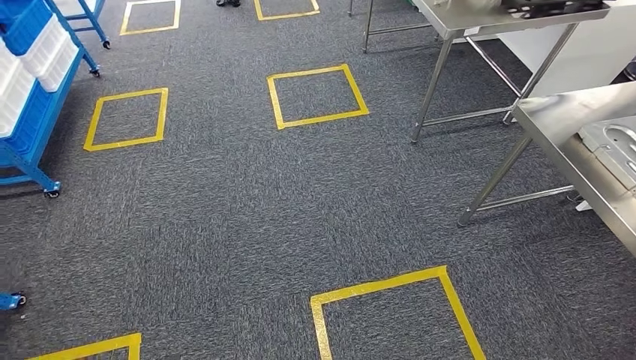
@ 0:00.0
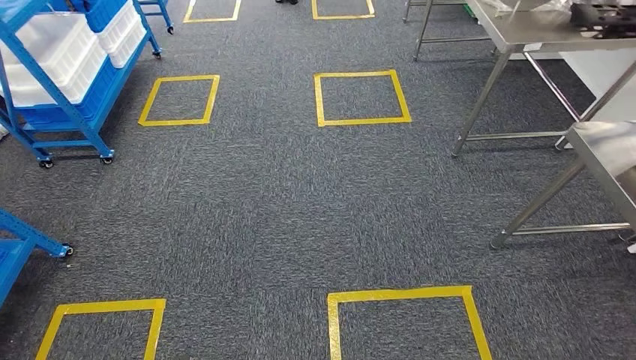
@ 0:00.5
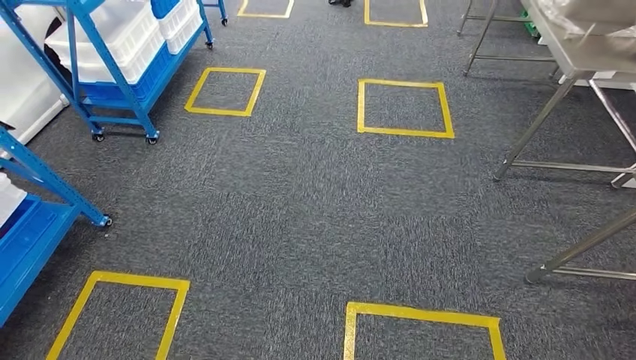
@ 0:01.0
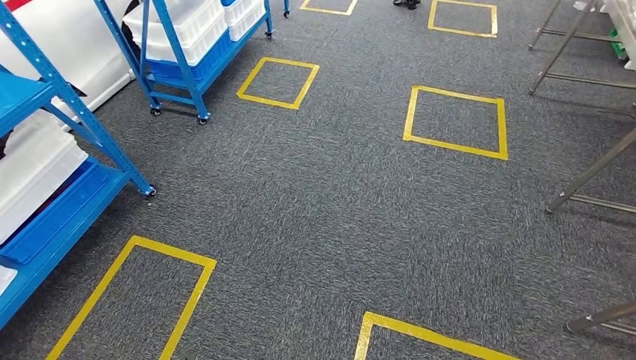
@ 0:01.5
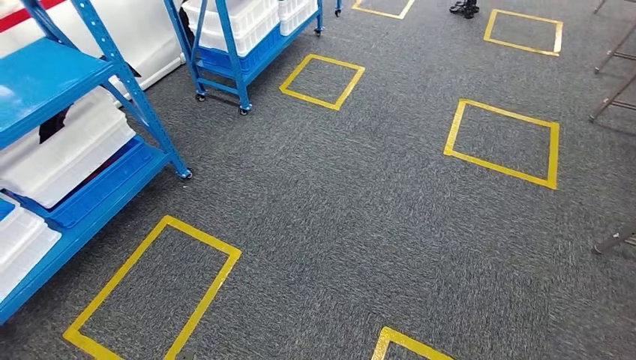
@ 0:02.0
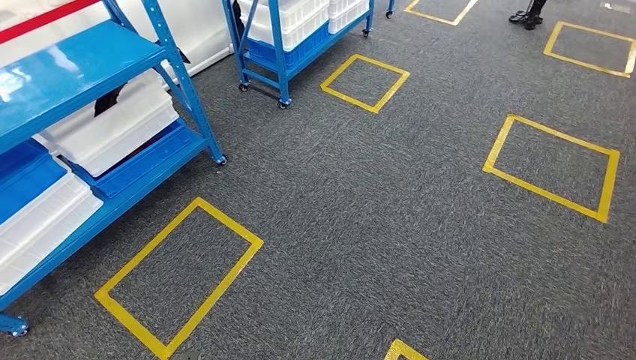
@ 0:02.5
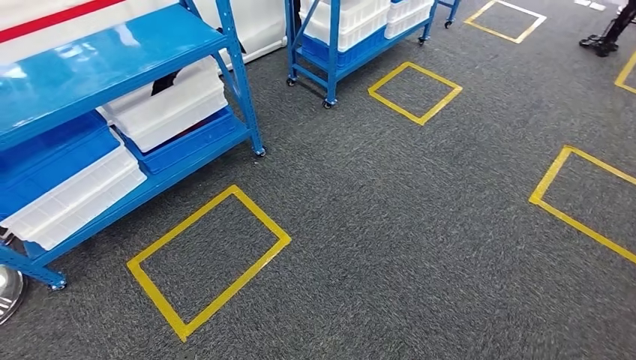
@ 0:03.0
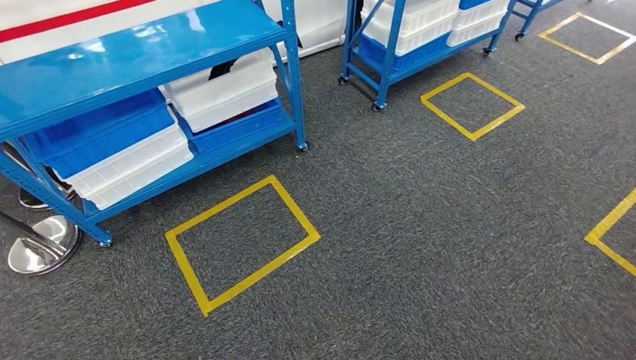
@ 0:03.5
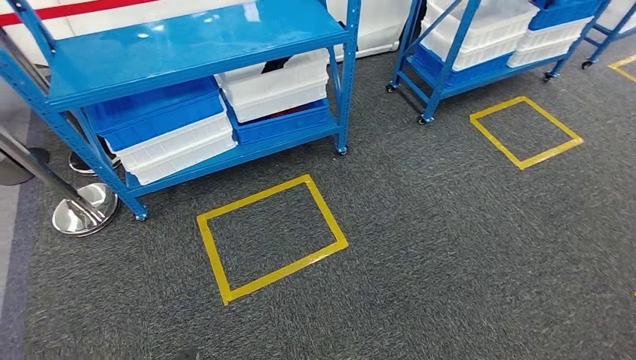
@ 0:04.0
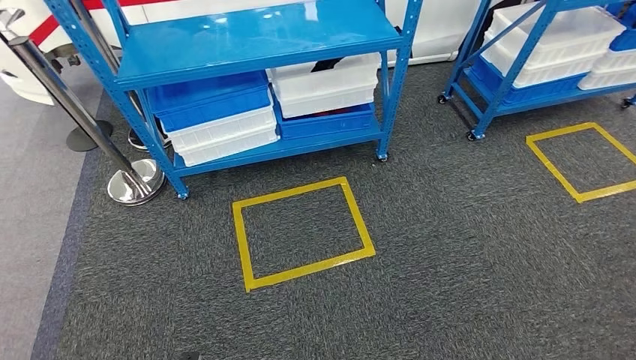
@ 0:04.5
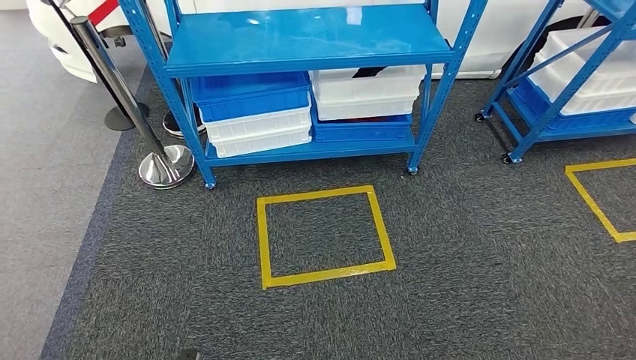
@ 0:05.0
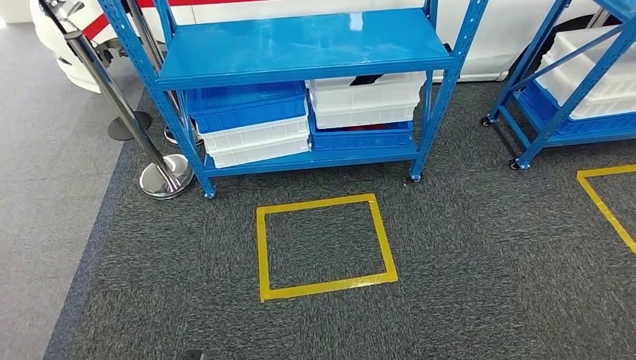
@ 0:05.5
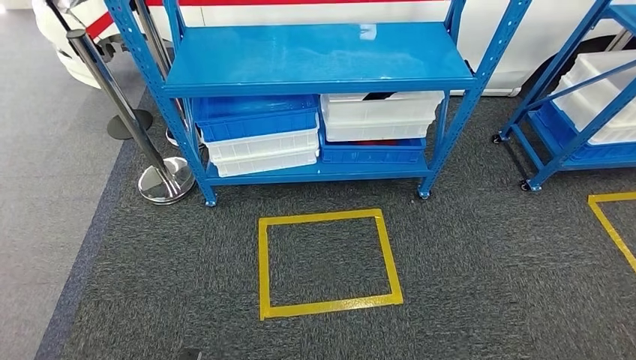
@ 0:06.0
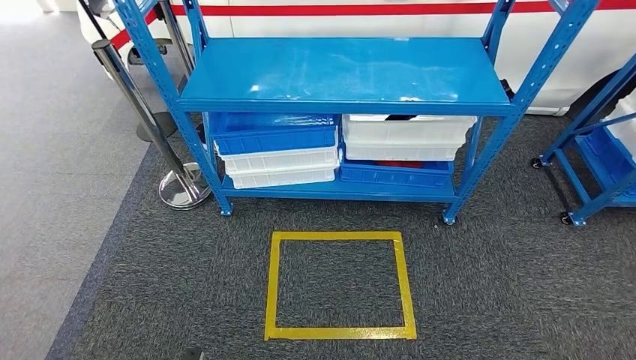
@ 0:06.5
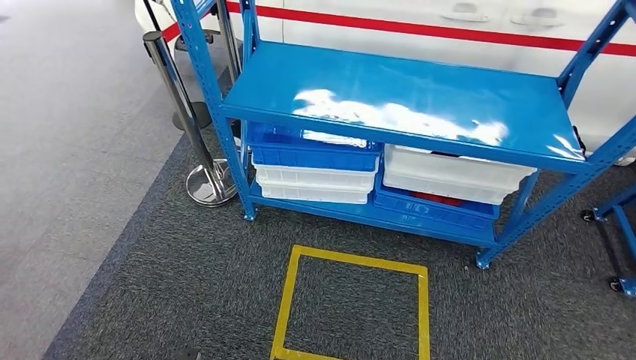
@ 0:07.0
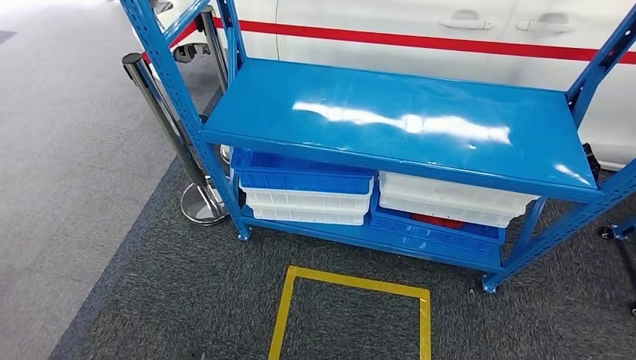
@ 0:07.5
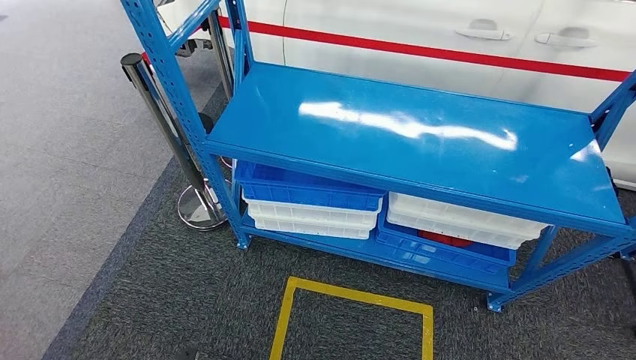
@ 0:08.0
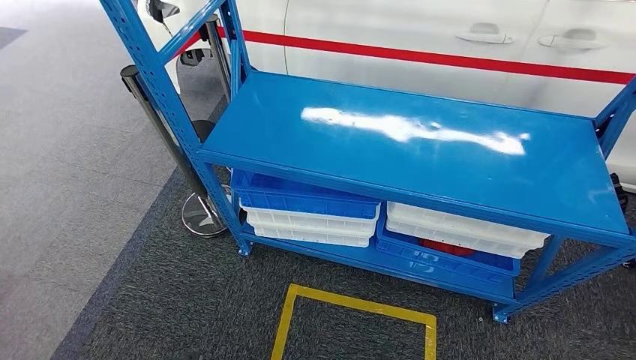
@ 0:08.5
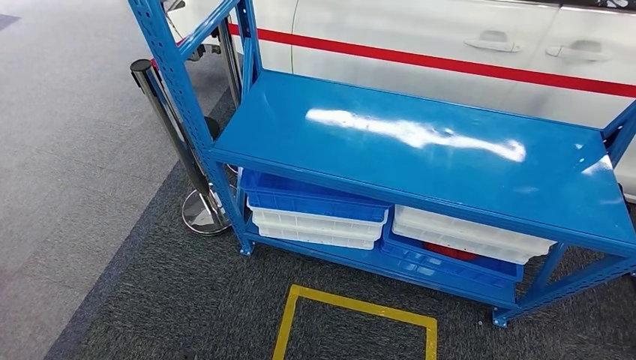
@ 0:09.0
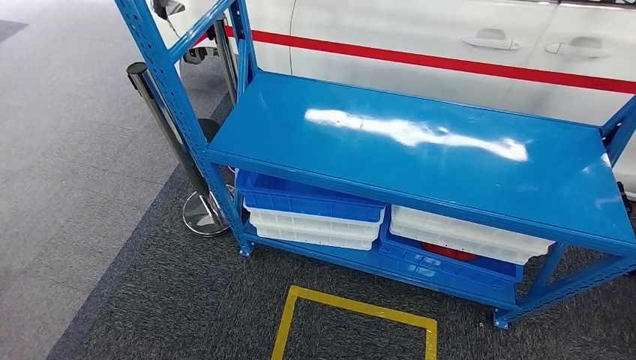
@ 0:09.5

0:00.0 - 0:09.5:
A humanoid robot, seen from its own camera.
Step, 0:00.0 - 0:09.5: Move to the initial position of the shelf.
